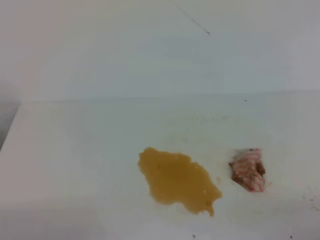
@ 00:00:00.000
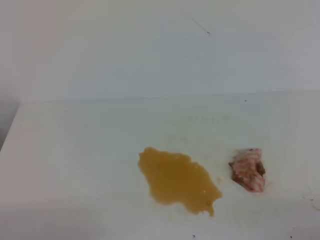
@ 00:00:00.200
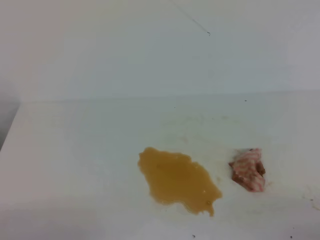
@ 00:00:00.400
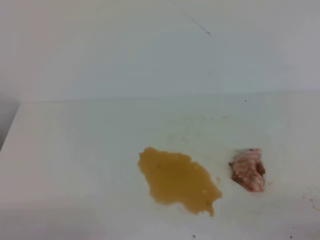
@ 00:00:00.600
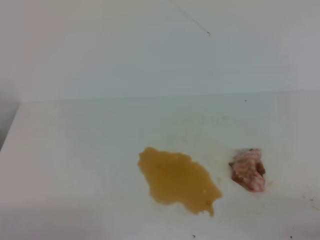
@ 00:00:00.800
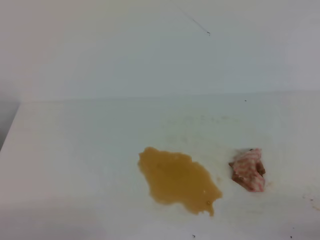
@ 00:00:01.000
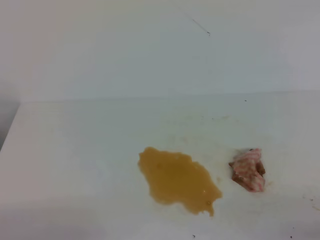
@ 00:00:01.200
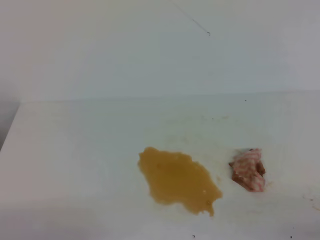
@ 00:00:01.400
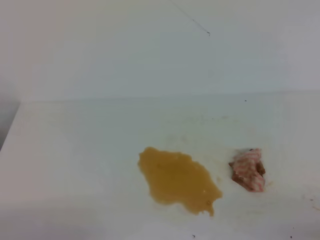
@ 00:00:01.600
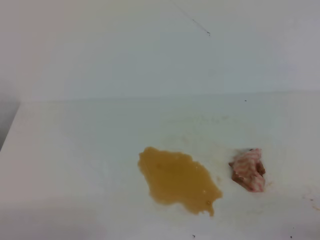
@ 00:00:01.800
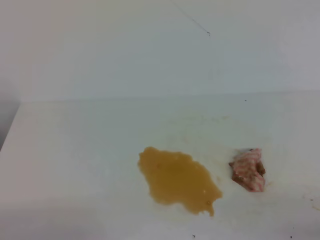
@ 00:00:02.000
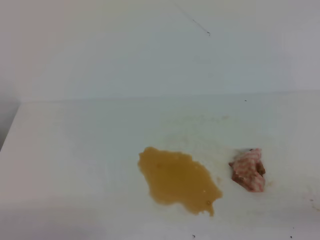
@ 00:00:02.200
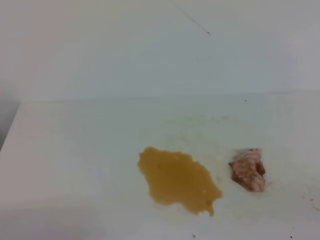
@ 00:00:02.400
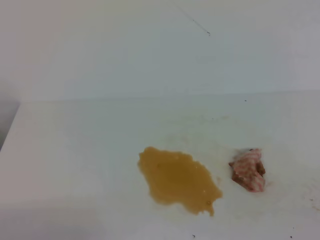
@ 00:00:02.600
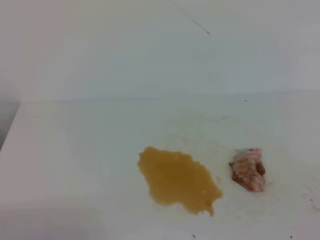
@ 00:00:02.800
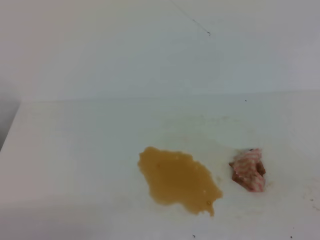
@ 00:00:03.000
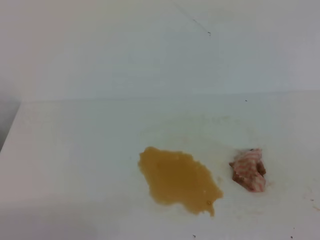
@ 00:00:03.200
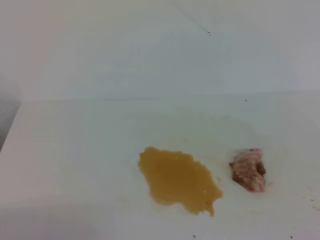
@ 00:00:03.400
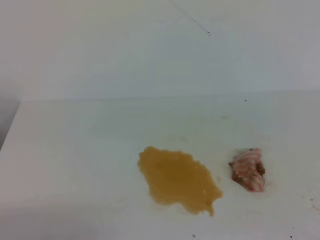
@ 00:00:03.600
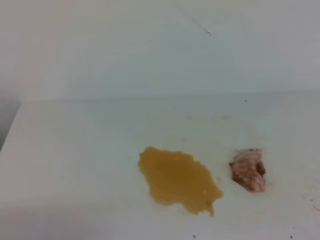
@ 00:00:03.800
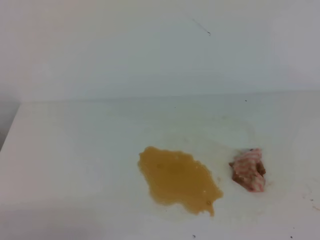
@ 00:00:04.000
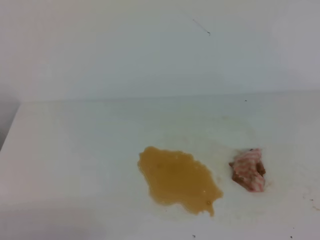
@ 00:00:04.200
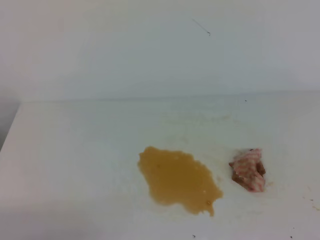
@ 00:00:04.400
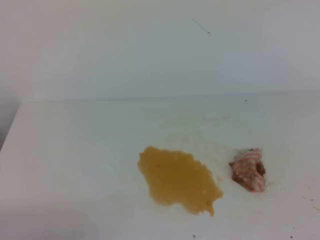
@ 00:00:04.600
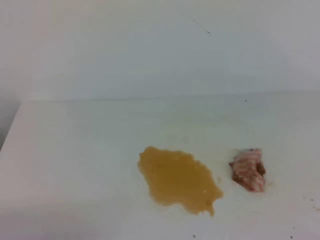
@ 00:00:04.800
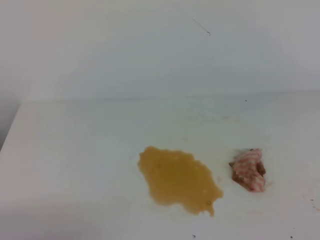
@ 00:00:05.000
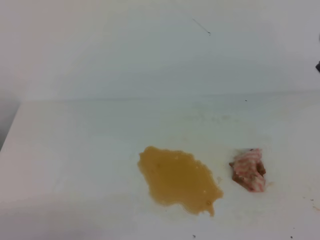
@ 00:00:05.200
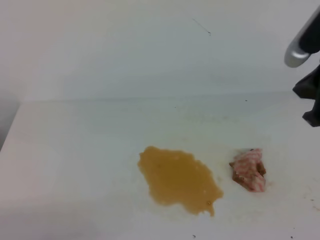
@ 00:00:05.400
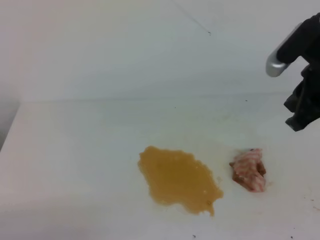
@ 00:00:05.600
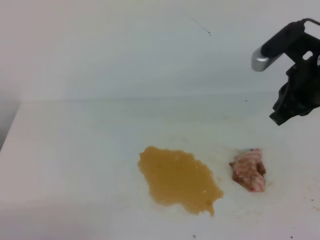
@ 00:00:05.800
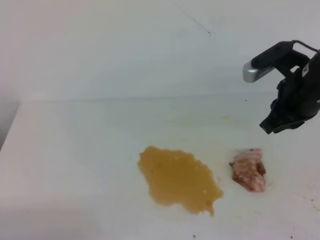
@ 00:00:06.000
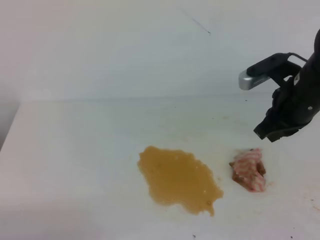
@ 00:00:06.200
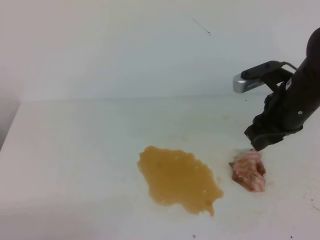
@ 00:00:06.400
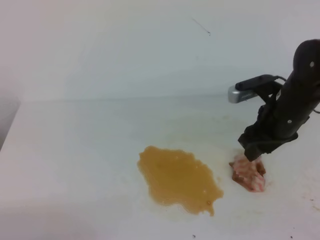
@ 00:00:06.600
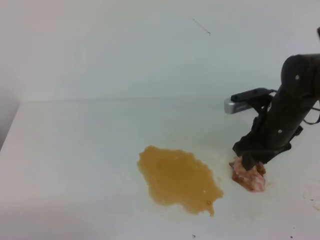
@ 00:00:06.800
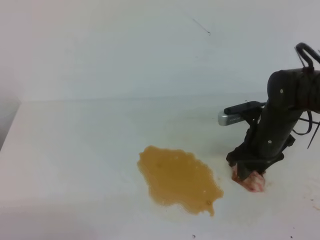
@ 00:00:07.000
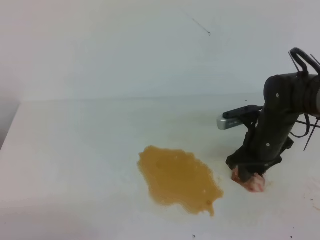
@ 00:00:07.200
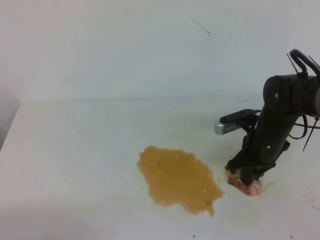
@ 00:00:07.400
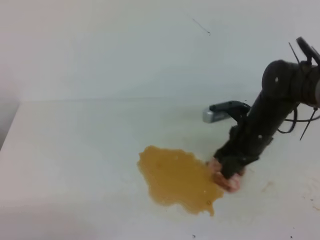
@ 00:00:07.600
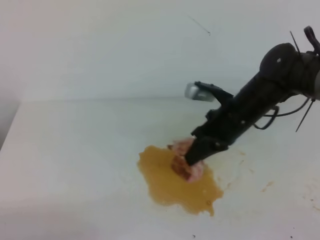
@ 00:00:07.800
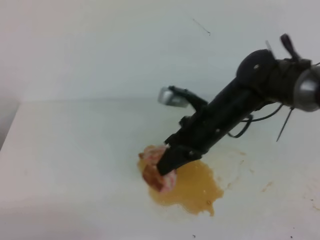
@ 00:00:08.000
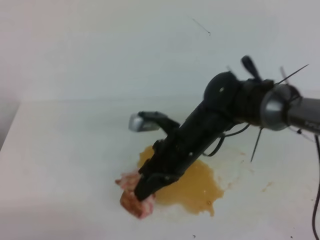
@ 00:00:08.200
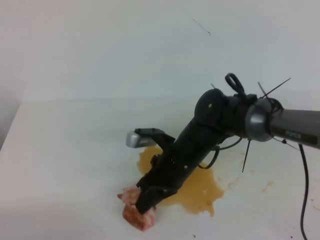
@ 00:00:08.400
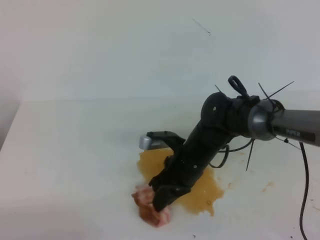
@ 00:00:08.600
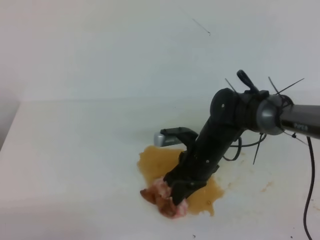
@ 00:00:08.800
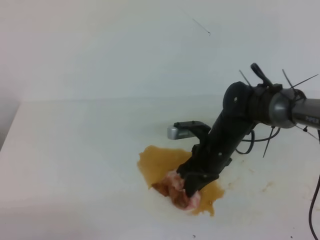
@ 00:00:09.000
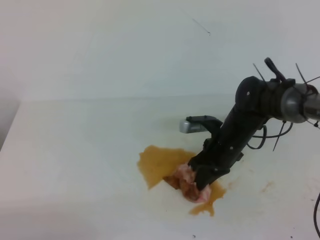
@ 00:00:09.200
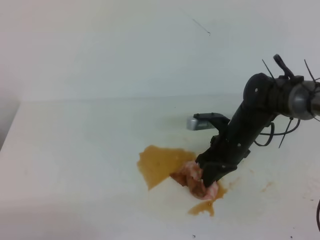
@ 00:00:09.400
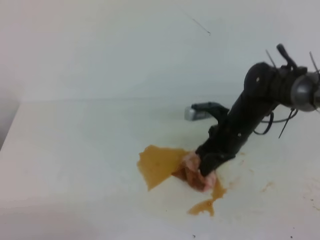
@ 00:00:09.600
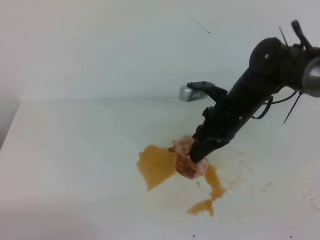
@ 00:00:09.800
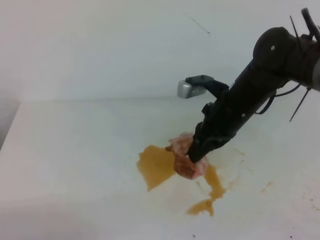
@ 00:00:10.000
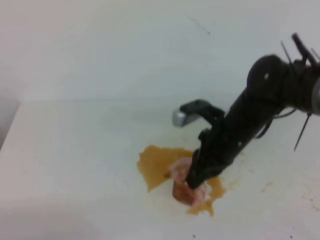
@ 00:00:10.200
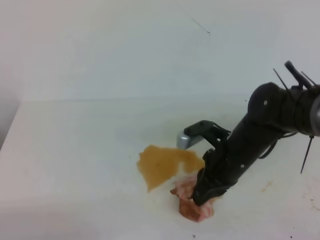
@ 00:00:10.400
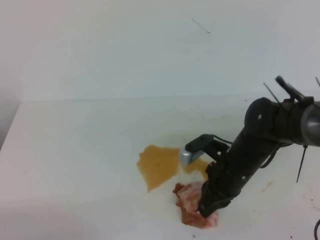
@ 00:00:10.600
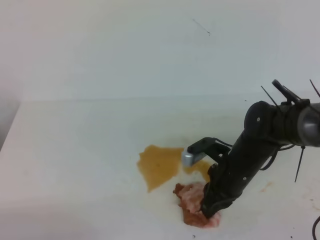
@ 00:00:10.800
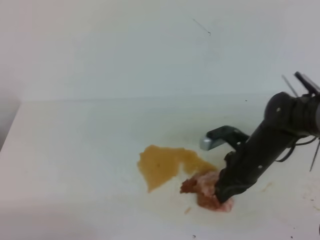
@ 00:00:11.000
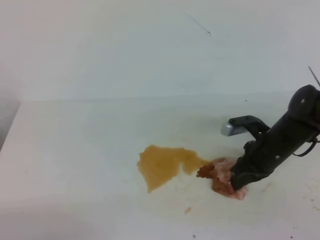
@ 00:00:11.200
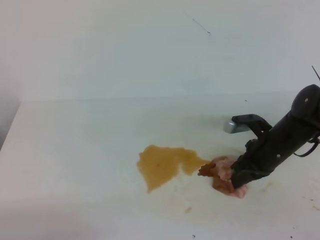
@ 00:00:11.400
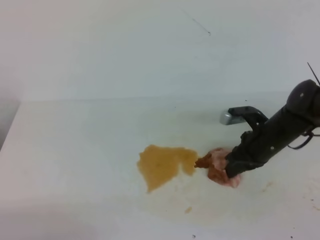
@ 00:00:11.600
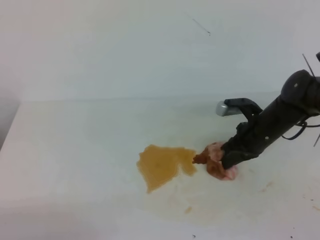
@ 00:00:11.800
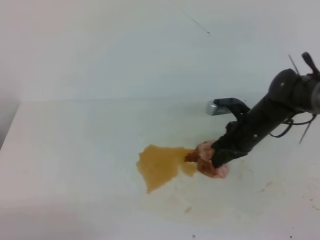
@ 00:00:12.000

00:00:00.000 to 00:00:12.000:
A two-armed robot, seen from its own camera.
00:00:04.400 to 00:00:06.000: The right gripper shifts about 30 cm forward, downward and to the left.
00:00:06.000 to 00:00:07.600: The right gripper shifts about 15 cm downward and to the left, and opens, then closes once more.
00:00:07.600 to 00:00:09.000: The right gripper moves to the left, roughly 5 cm.
00:00:09.000 to 00:00:10.400: The right gripper ends up approximately 5 cm from where it was.
00:00:10.400 to 00:00:12.000: The right gripper shifts roughly 10 cm forward, downward and to the right.

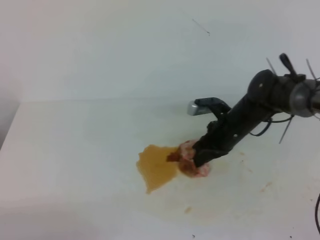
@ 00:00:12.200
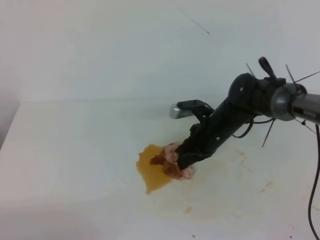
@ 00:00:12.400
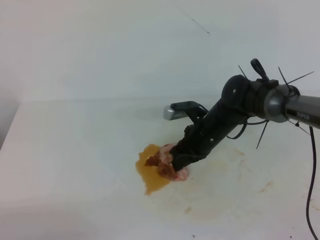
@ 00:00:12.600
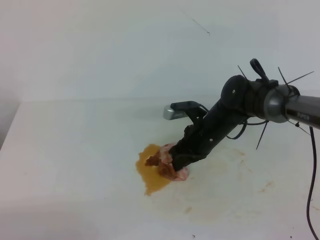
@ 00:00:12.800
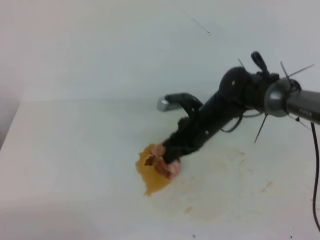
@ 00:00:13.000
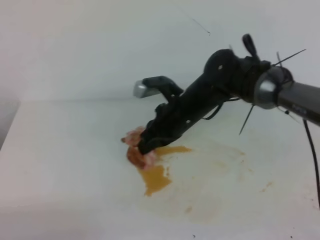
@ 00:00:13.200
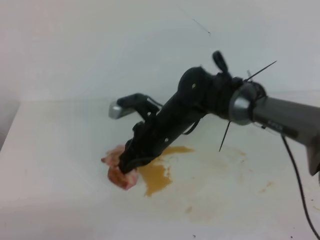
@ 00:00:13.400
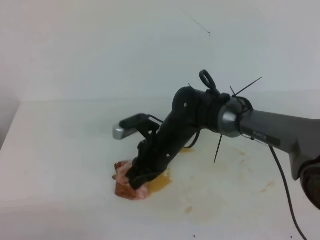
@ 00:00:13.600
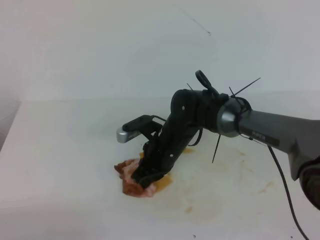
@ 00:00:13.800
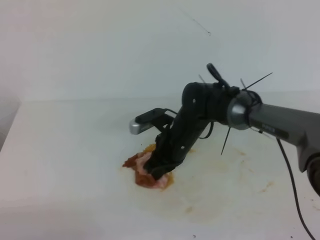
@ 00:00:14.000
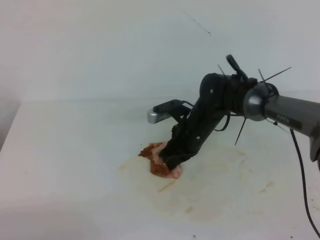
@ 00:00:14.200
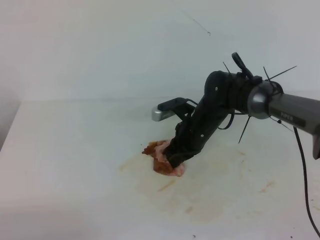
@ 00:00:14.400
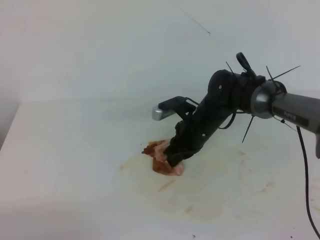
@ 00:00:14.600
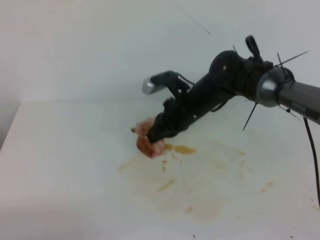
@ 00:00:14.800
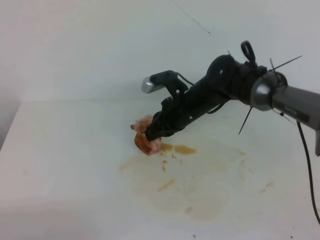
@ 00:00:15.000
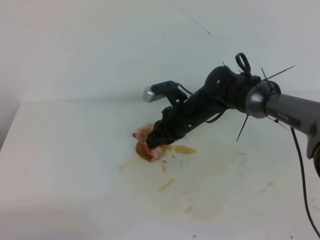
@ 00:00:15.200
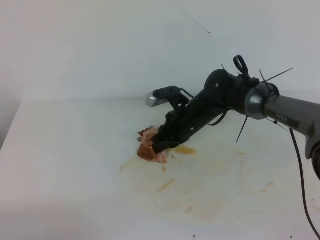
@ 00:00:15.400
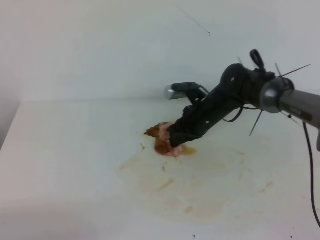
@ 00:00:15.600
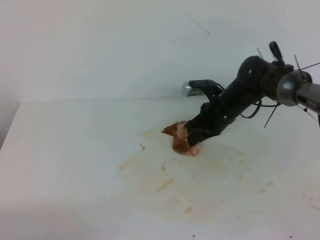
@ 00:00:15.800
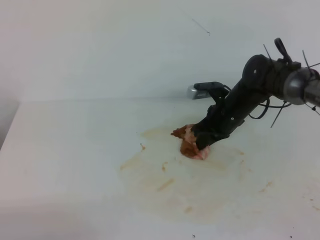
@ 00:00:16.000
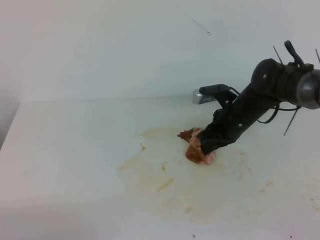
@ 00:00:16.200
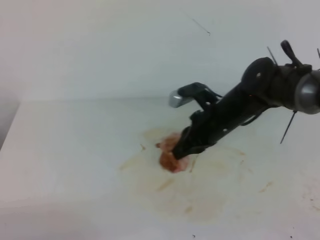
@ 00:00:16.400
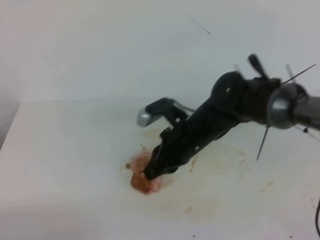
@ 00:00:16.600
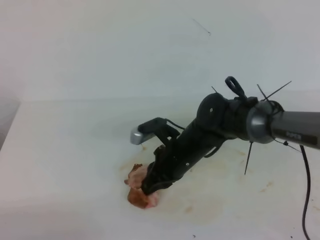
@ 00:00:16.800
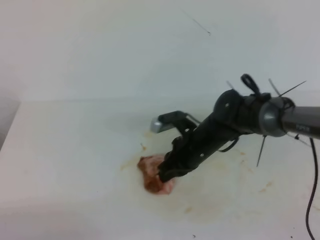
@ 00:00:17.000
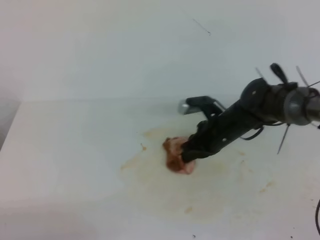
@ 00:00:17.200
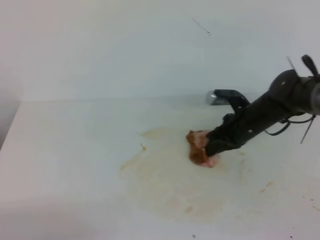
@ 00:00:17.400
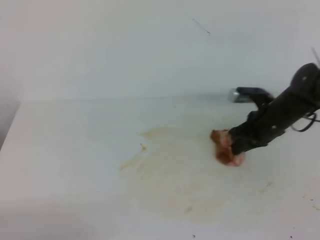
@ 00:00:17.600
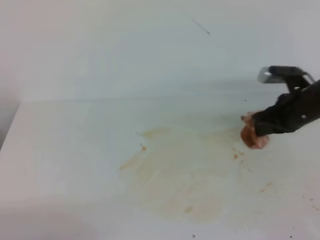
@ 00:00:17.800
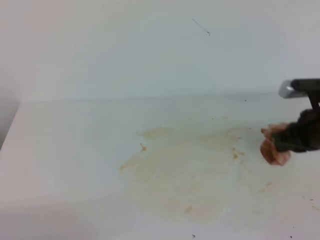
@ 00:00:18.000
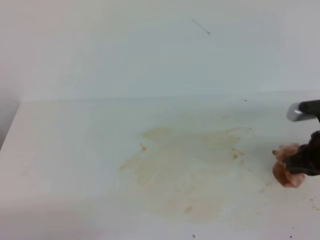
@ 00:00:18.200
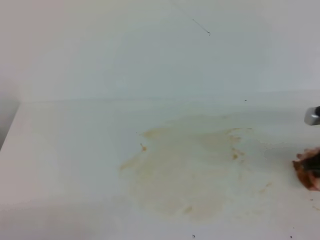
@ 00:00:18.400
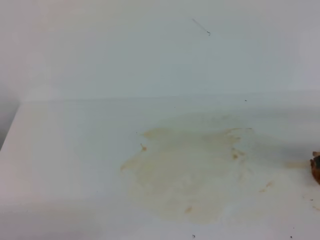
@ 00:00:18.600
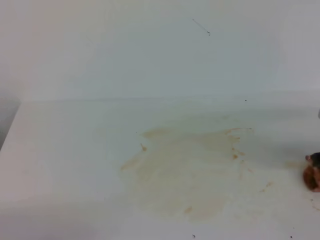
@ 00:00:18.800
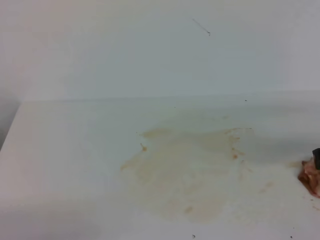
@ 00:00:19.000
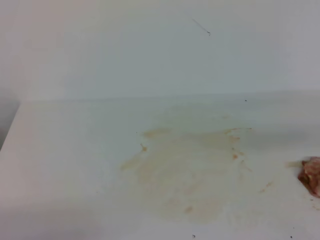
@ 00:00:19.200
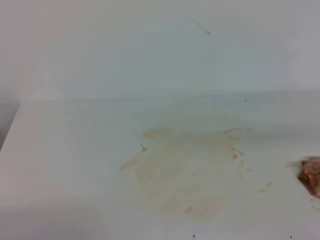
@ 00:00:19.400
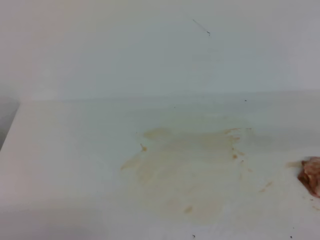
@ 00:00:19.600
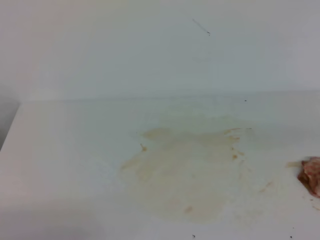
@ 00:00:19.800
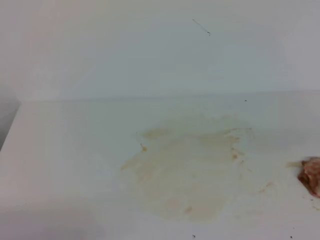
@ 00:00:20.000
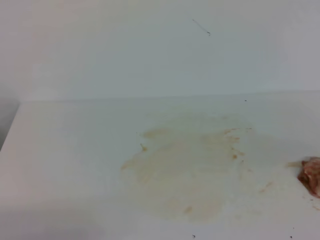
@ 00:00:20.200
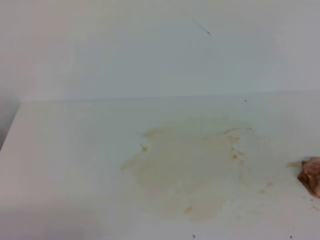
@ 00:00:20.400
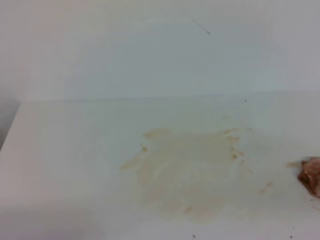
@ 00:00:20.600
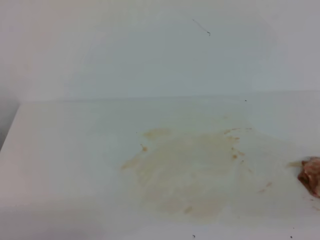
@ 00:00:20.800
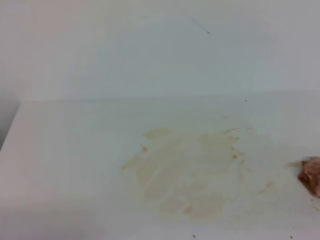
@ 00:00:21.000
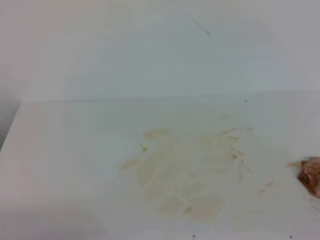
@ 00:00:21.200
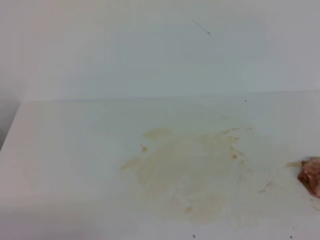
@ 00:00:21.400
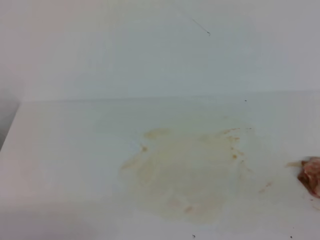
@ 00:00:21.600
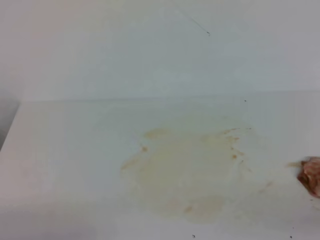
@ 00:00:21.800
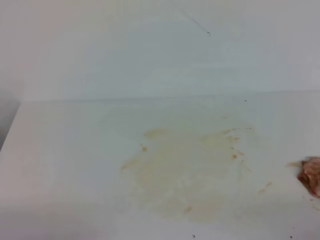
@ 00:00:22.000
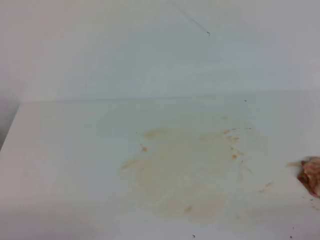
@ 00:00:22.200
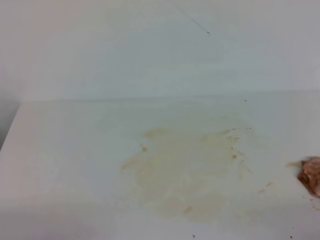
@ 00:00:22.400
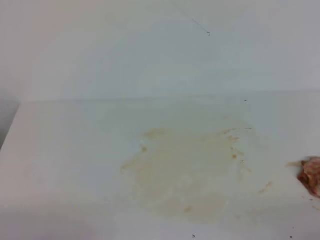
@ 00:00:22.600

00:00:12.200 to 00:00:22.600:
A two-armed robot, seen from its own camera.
00:00:12.200 to 00:00:13.600: The right gripper shifts roughly 15 cm to the left.
00:00:13.600 to 00:00:15.200: The right gripper goes roughly 5 cm forward.
00:00:15.200 to 00:00:16.600: The right gripper goes approximately 5 cm backward.
00:00:16.600 to 00:00:18.200: The right gripper shifts about 20 cm to the right.
00:00:18.200 to 00:00:19.600: The right gripper is displaced upward and backward by roughly 15 cm, and opens, then closes once more.
